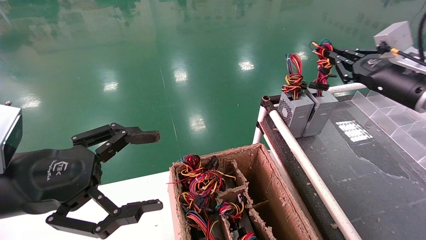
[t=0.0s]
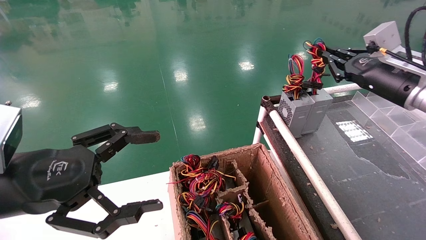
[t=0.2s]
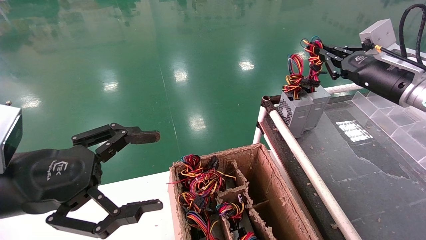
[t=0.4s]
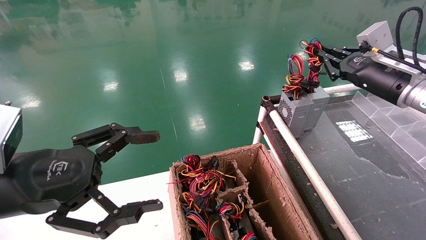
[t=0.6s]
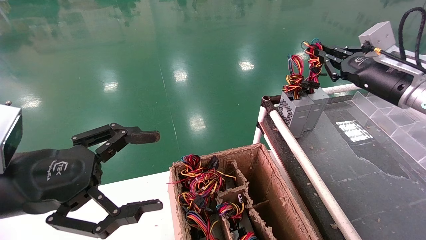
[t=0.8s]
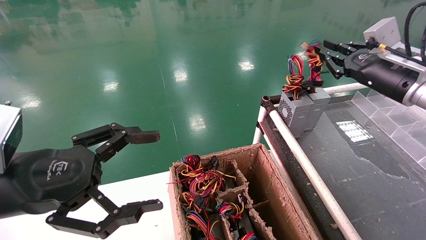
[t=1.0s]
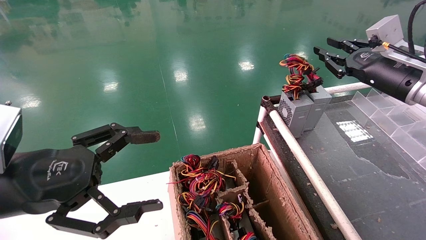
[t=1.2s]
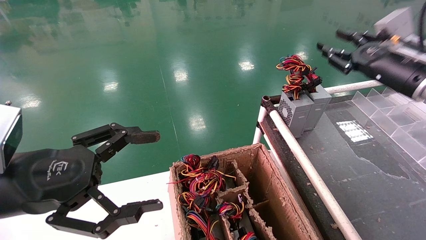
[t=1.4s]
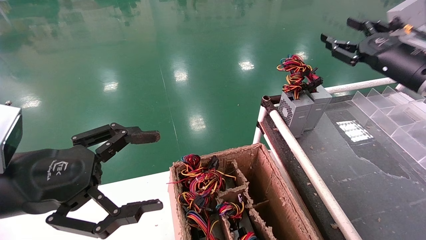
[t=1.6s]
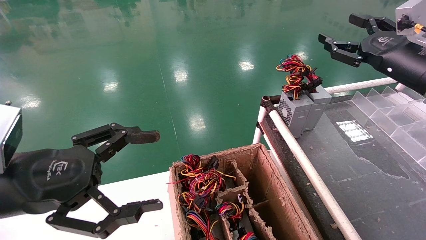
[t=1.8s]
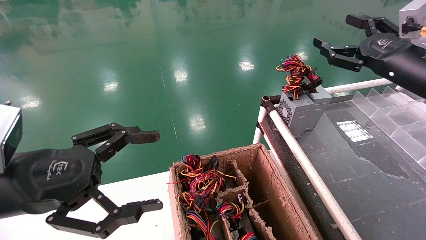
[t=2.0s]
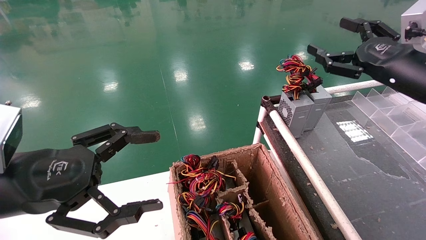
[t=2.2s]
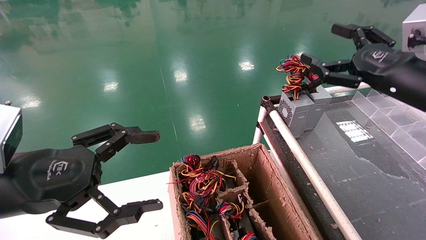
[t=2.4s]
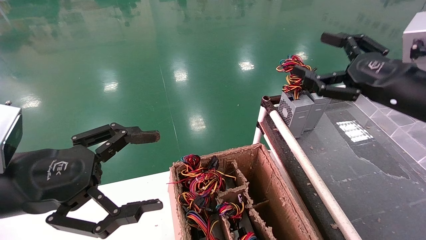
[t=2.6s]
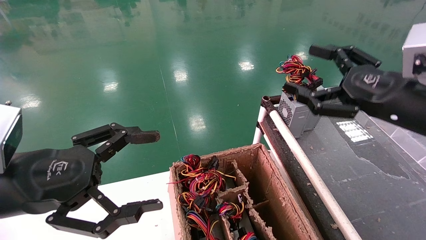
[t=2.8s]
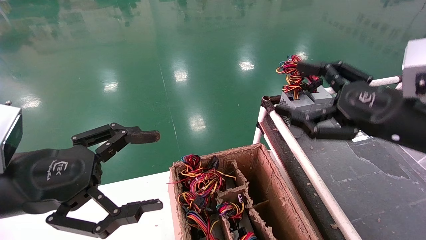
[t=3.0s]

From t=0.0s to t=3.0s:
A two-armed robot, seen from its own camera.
From t=0.0s to t=1.6s: The right gripper opens up.
From t=1.6s to t=3.0s: The right gripper heads backward and to the left, covering about 15 cm, and opens.
